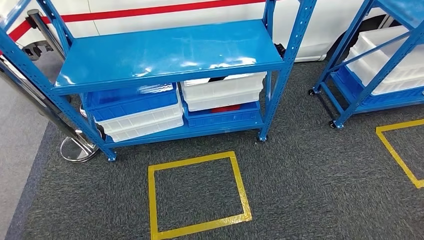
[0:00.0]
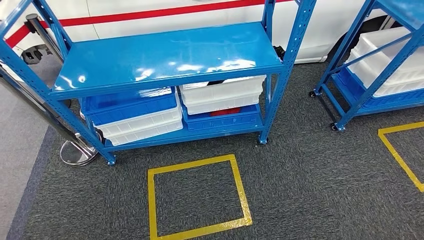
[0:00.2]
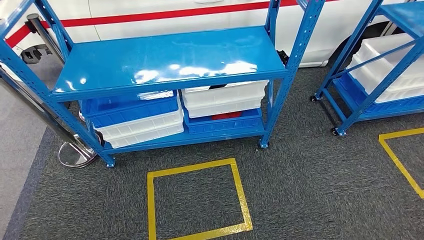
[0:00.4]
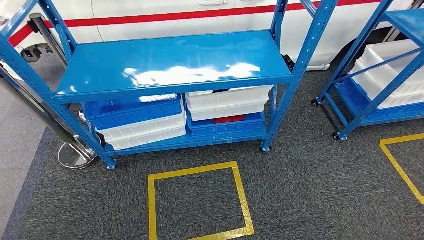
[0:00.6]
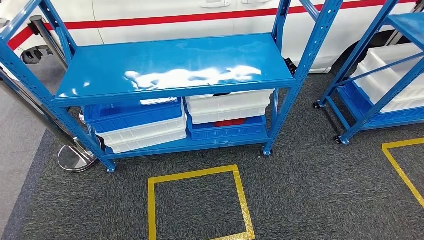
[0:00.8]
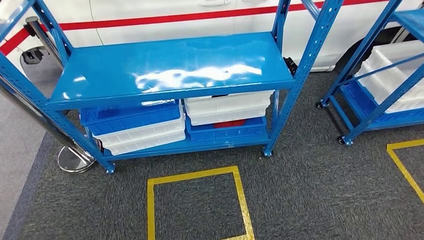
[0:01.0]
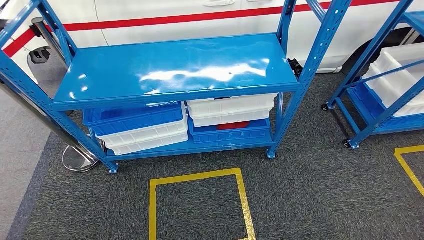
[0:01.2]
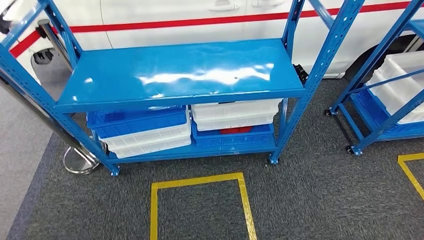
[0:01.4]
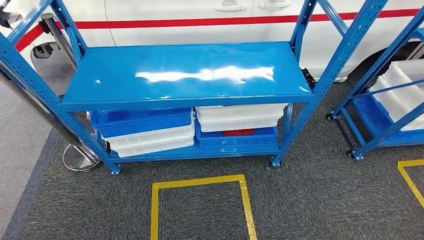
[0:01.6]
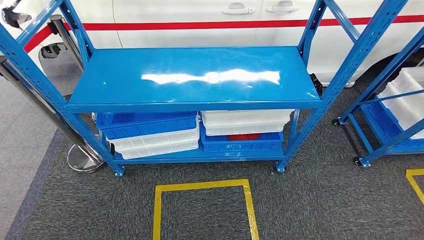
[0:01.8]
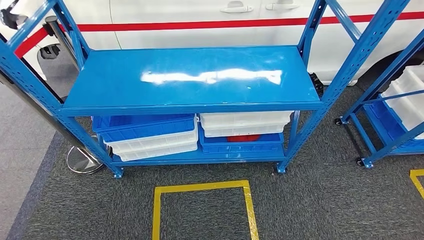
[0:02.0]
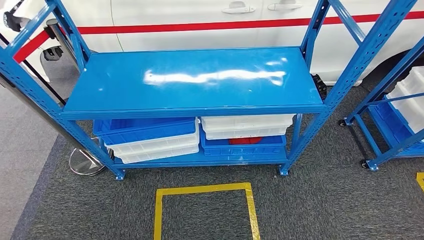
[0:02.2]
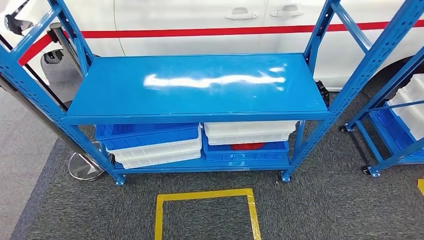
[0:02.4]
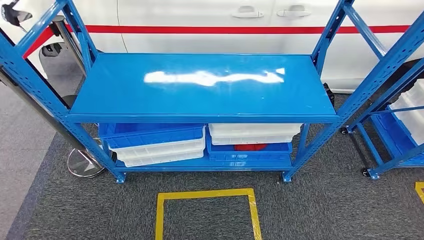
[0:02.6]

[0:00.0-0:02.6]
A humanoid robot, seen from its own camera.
Step, 0:00.0 to 0:02.4: Move to the initial position of the shelf.

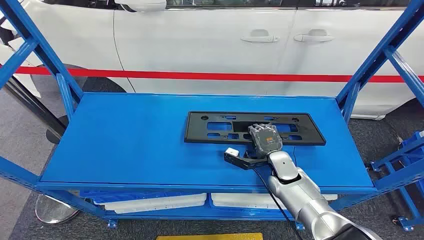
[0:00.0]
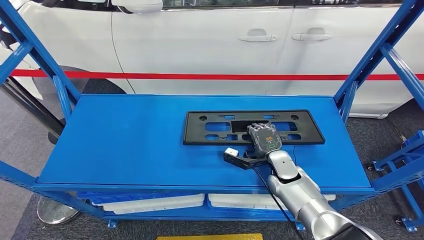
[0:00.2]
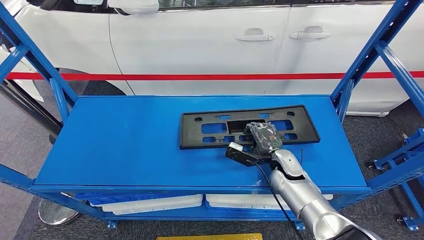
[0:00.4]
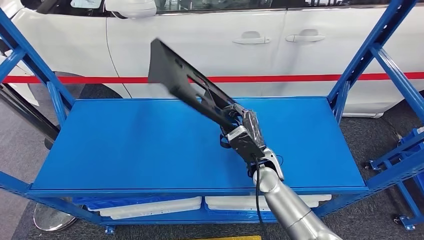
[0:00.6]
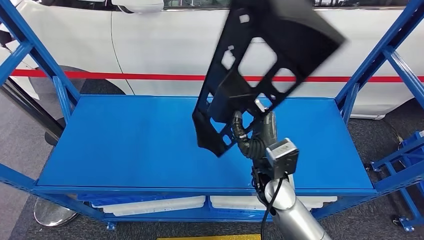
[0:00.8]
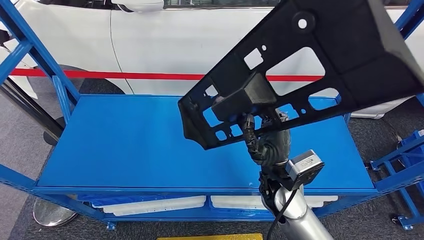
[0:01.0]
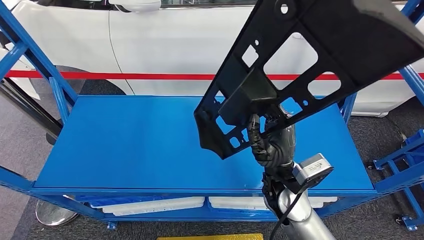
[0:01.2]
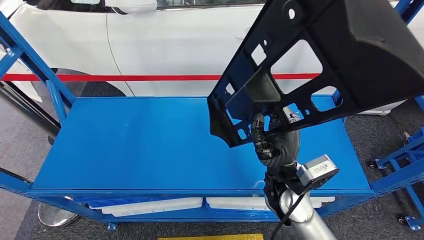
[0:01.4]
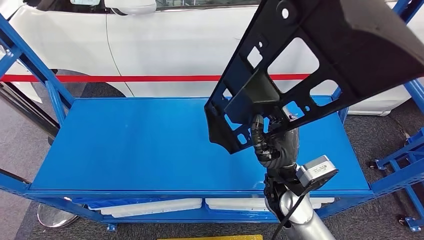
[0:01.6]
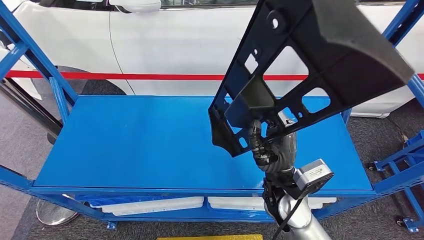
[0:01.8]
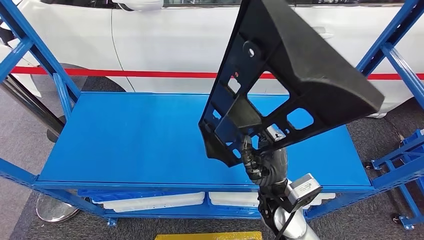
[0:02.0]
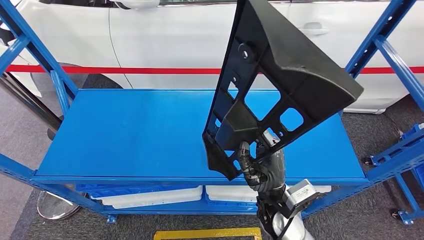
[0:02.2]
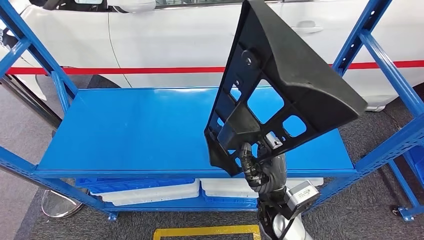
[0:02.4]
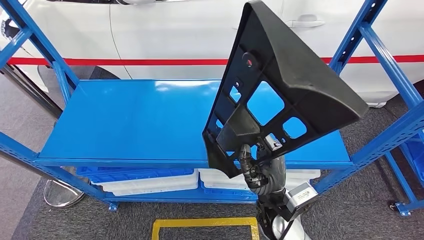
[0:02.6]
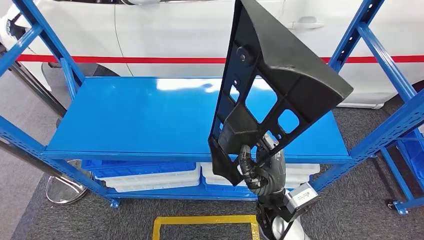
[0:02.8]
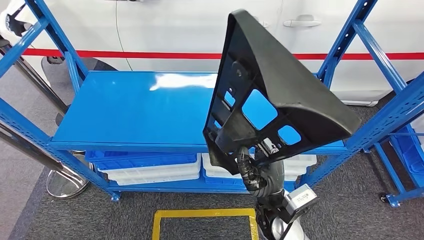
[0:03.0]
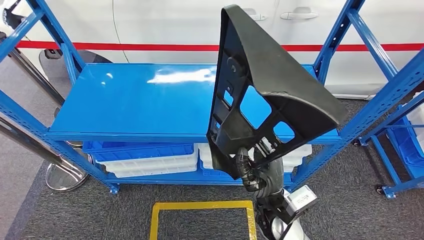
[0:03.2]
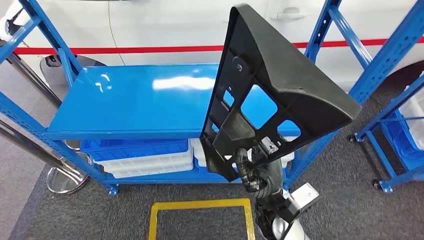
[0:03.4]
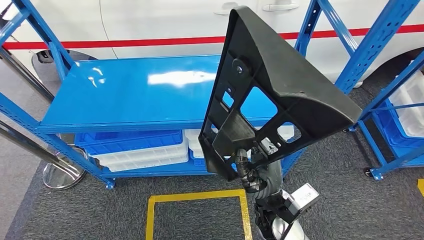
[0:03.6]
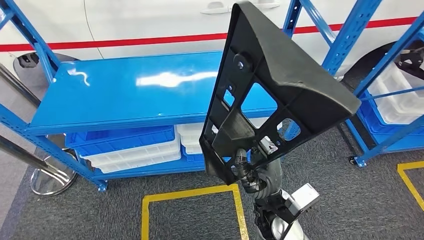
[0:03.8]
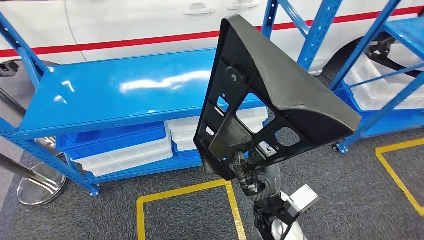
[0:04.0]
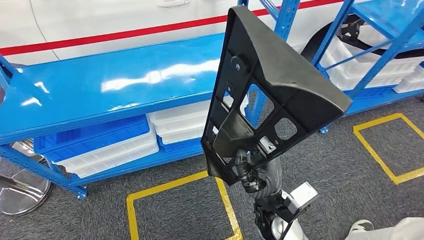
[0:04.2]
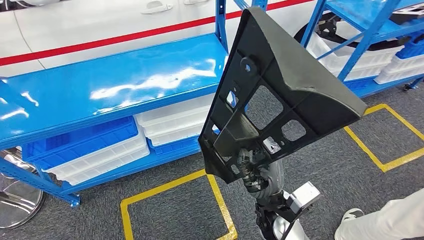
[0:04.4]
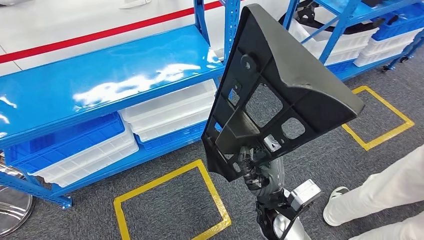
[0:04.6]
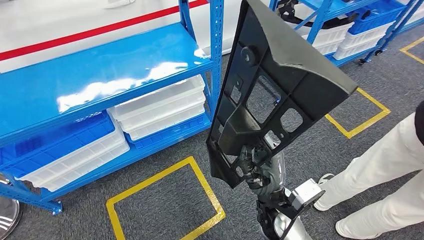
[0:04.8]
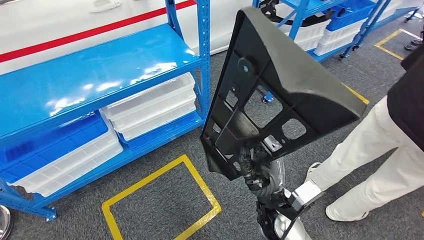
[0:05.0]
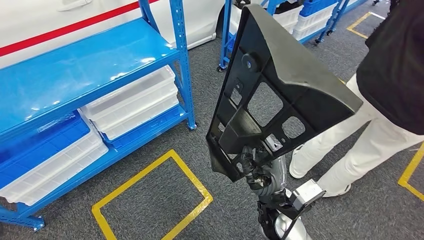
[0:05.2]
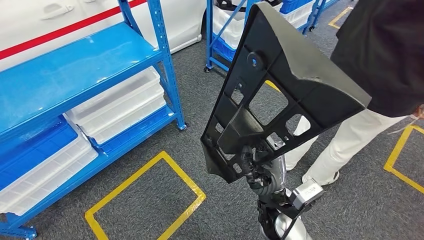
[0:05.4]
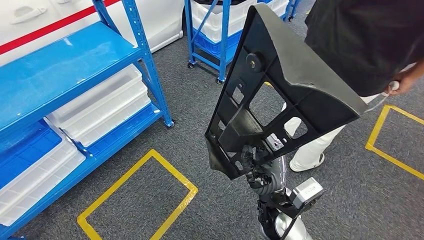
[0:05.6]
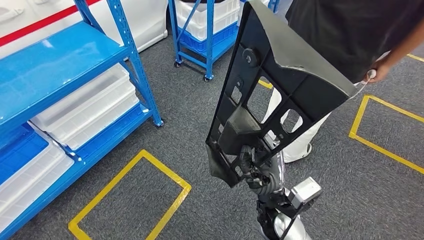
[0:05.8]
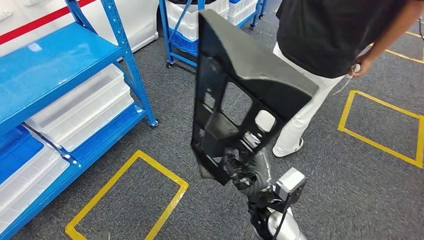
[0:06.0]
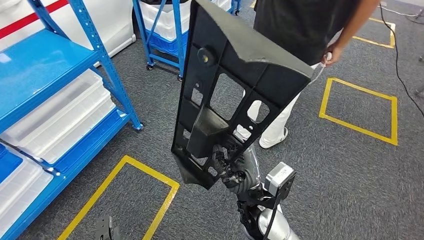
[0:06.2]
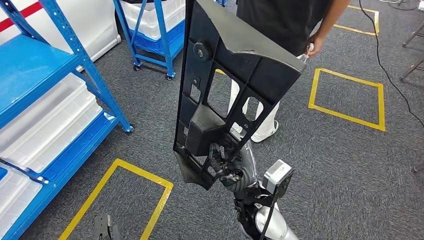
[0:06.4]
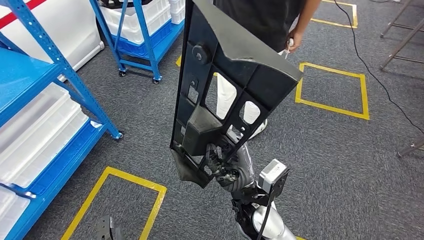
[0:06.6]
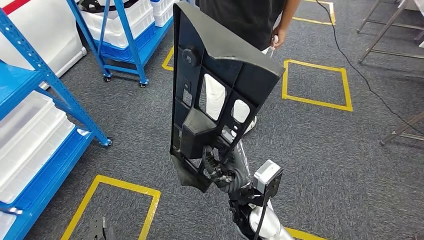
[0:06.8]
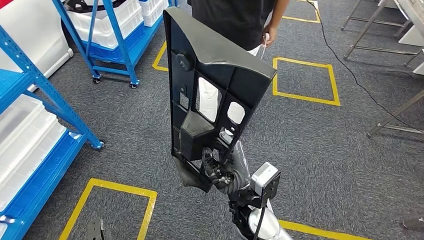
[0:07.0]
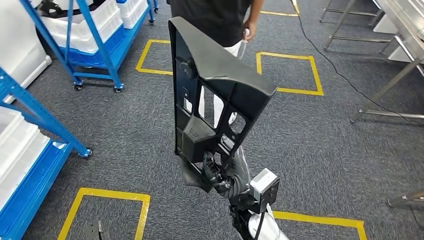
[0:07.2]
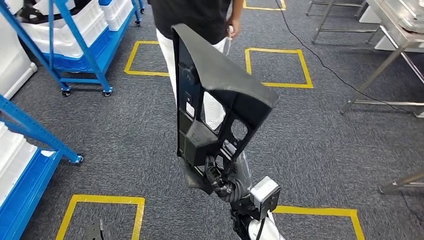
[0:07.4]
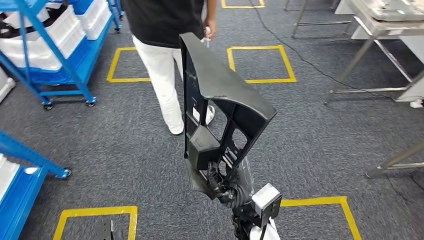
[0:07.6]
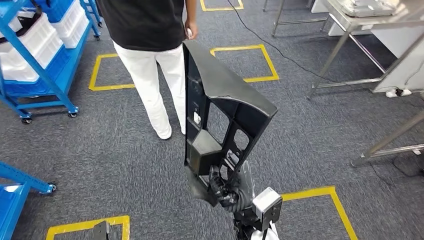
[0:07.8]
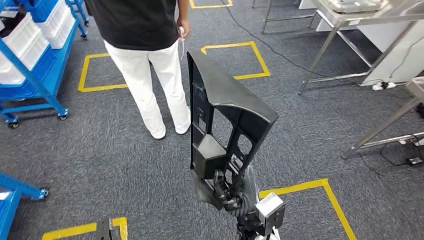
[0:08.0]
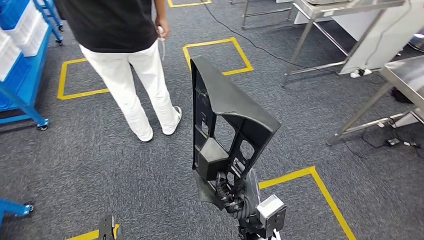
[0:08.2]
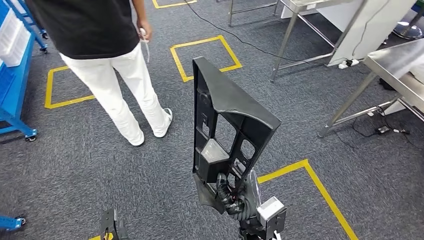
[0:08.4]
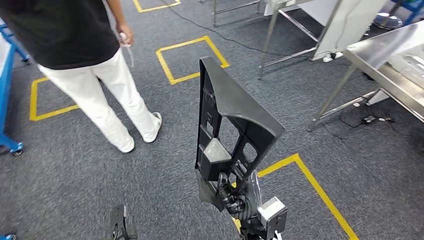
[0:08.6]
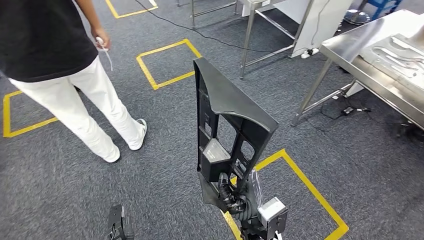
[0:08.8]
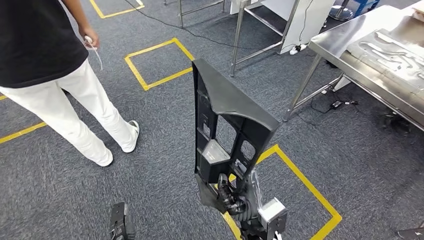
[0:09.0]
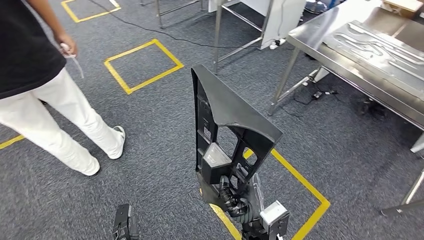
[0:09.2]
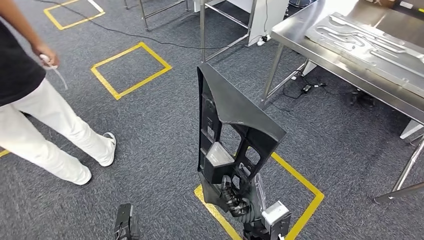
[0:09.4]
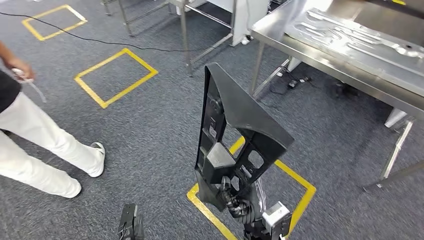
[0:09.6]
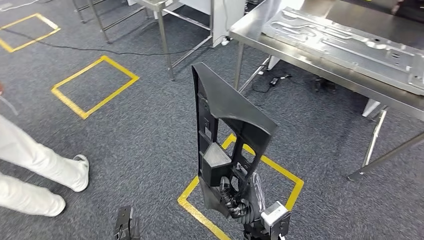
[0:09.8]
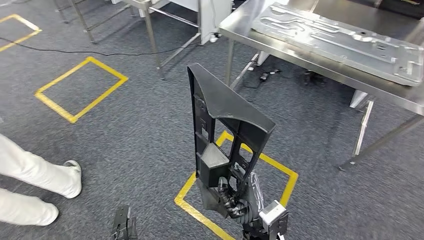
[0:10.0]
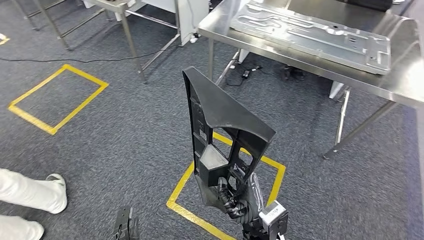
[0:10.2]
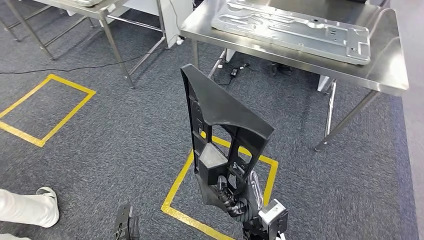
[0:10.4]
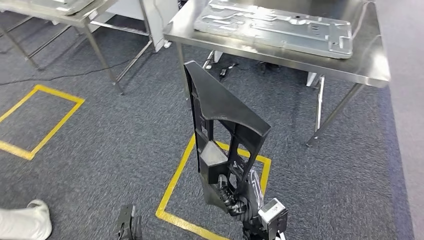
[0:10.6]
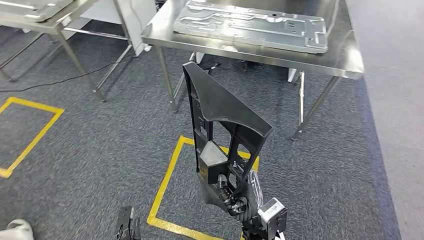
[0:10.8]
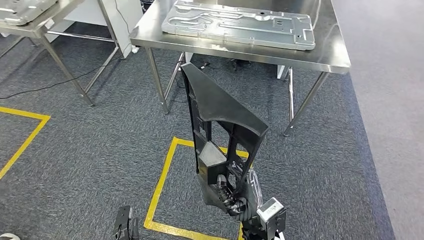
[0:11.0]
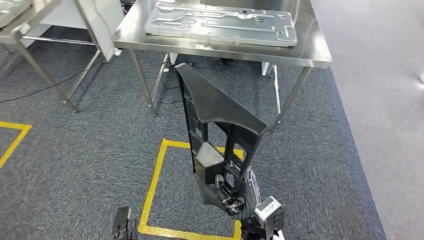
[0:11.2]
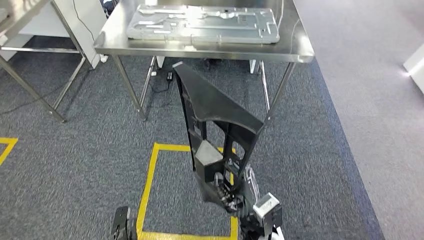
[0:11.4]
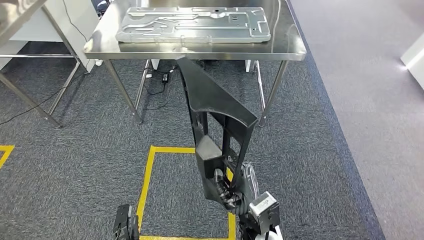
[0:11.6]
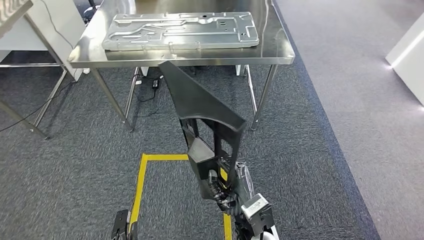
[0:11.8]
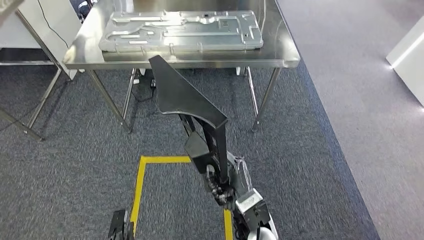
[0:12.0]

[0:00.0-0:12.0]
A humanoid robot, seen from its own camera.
Step, 0:00.0 to 0:03.0: Pick up the large material from the shelf.

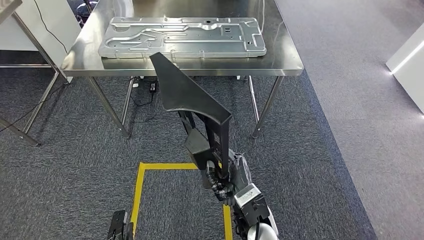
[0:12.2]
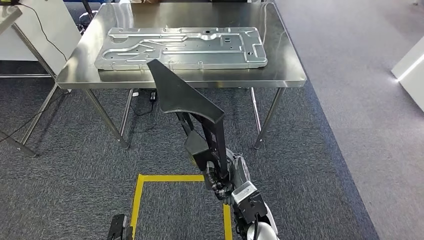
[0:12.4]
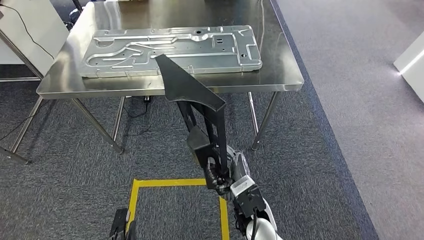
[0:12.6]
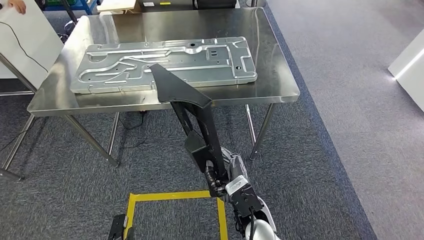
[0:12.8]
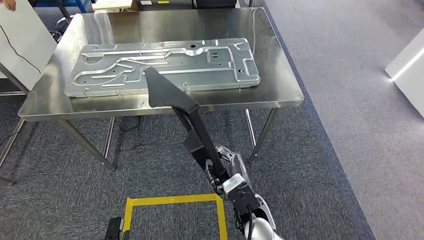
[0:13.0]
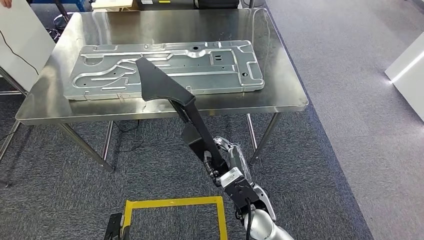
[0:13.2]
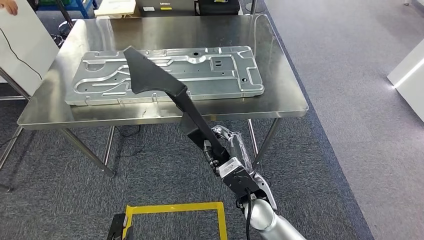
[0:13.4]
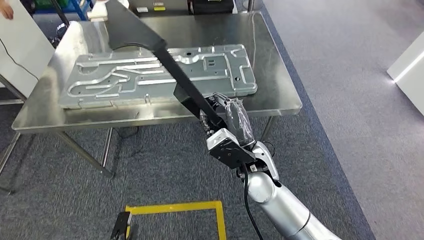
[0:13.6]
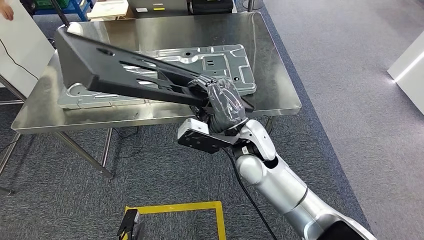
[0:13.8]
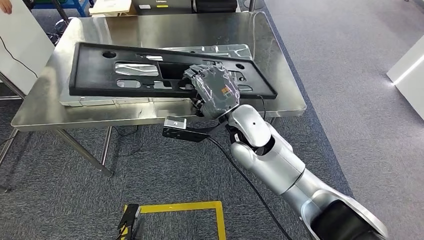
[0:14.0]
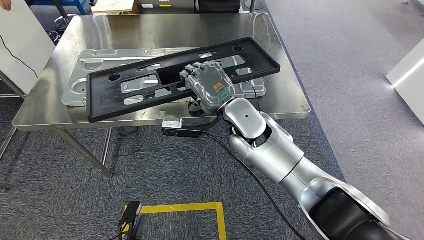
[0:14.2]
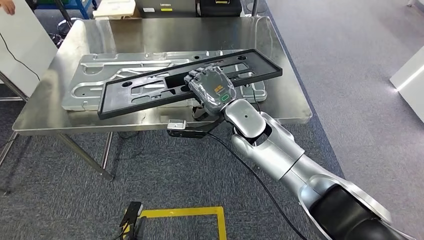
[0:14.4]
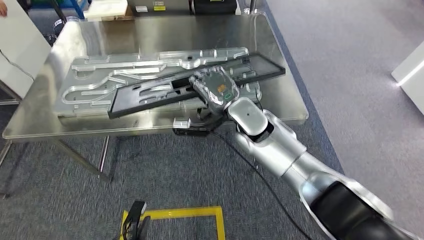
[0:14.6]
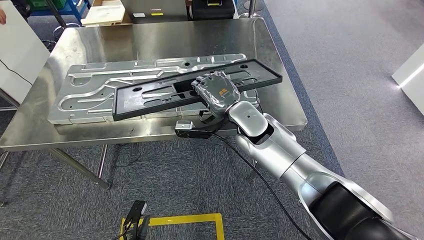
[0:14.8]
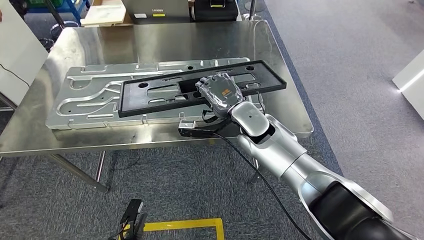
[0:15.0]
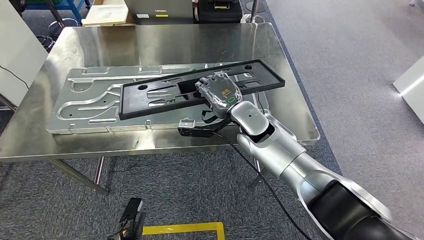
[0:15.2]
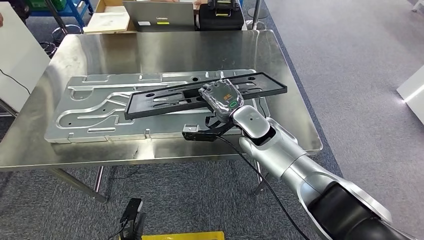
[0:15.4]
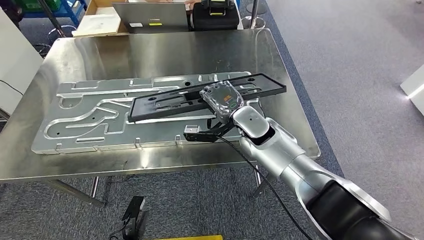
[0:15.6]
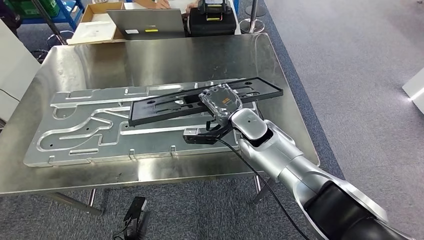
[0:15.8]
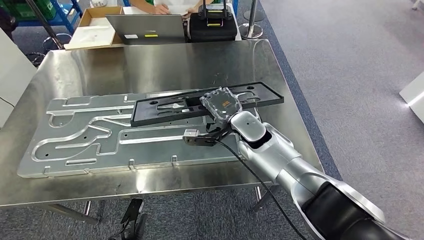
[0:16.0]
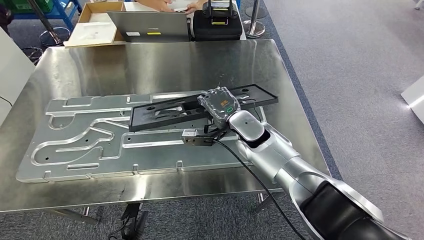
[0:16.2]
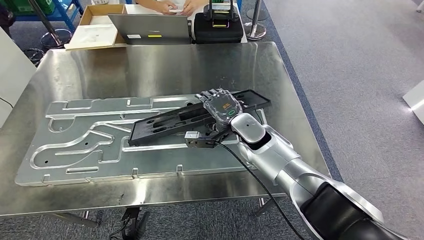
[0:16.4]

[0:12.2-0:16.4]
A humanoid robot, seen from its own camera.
Step, 0:12.2 to 0:14.8: Move the large material to the front of the workbench.
